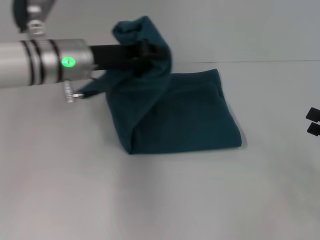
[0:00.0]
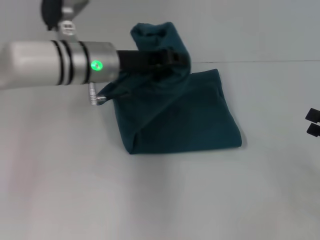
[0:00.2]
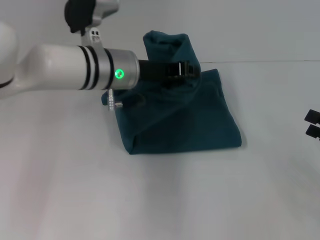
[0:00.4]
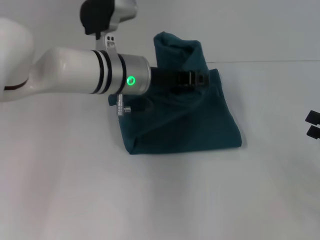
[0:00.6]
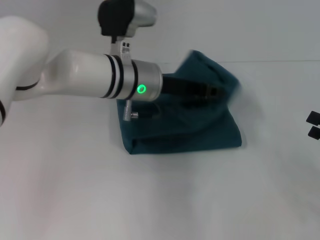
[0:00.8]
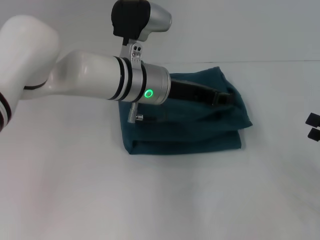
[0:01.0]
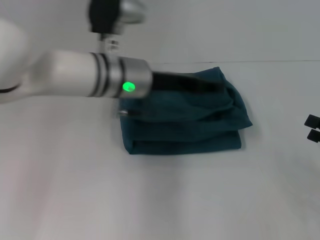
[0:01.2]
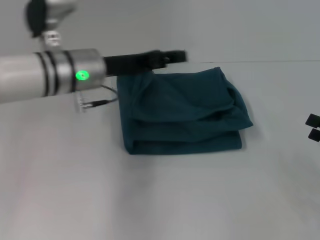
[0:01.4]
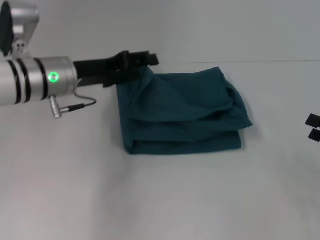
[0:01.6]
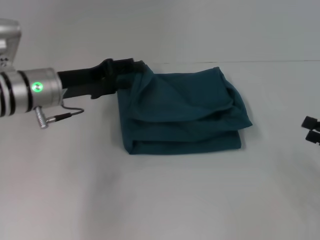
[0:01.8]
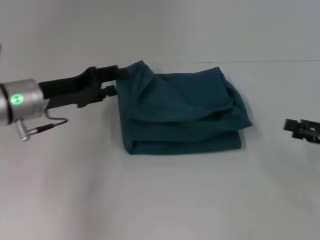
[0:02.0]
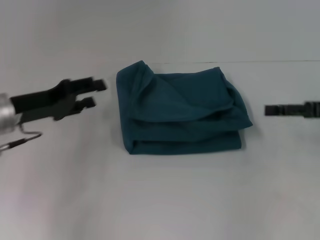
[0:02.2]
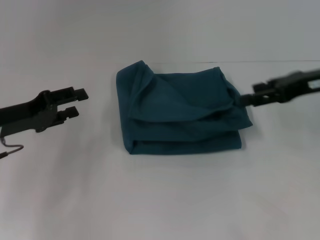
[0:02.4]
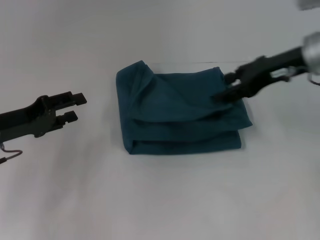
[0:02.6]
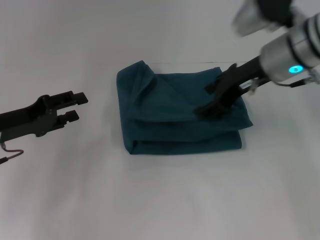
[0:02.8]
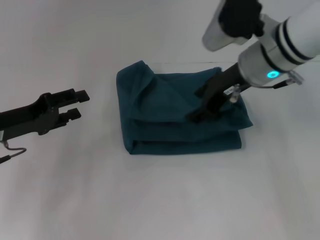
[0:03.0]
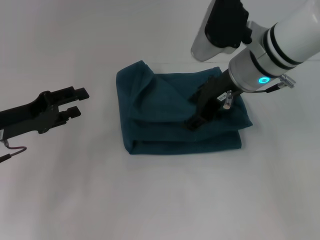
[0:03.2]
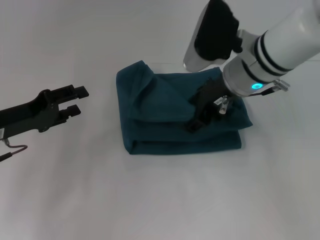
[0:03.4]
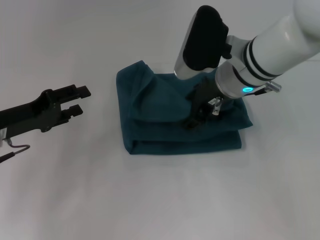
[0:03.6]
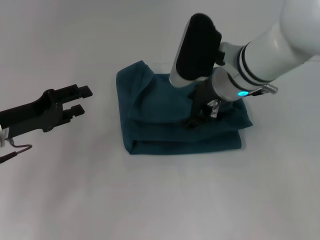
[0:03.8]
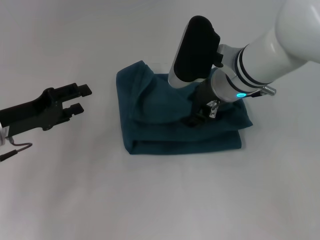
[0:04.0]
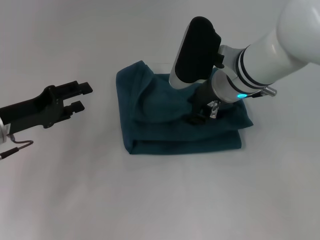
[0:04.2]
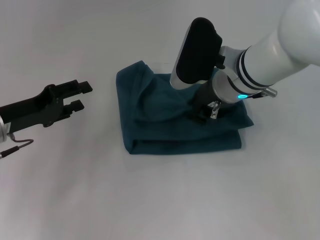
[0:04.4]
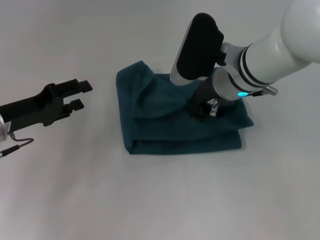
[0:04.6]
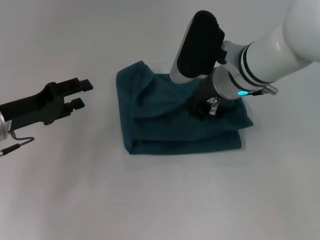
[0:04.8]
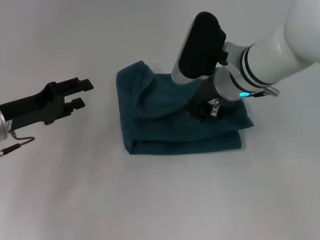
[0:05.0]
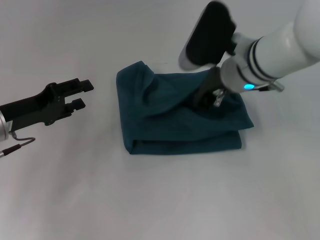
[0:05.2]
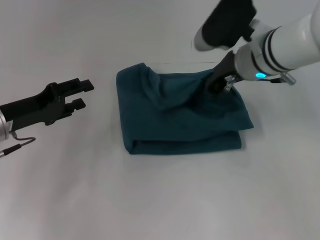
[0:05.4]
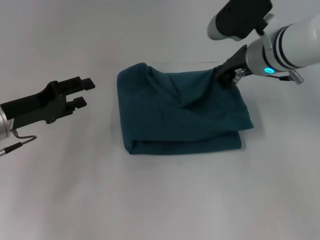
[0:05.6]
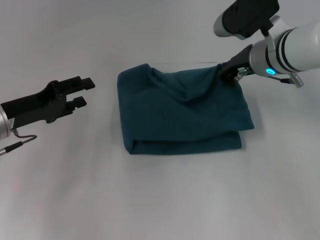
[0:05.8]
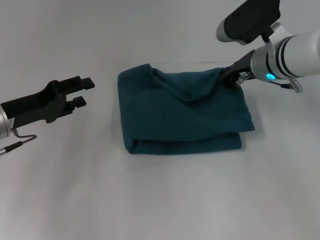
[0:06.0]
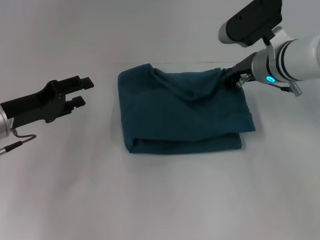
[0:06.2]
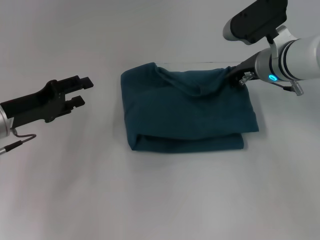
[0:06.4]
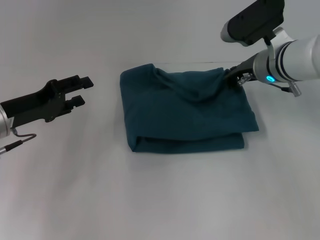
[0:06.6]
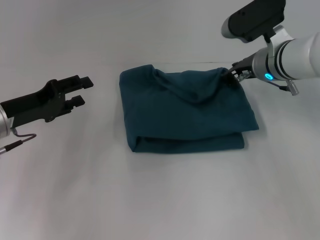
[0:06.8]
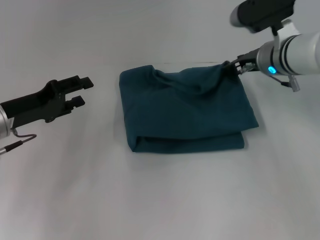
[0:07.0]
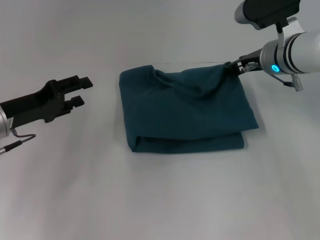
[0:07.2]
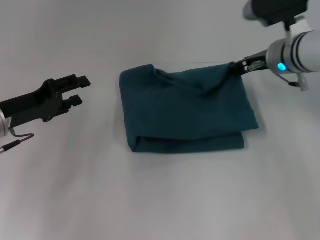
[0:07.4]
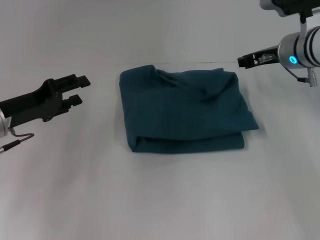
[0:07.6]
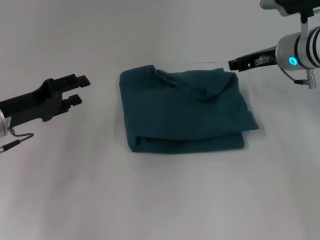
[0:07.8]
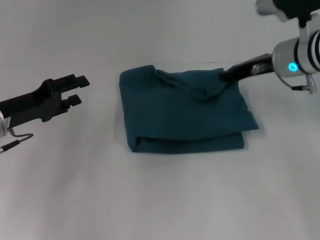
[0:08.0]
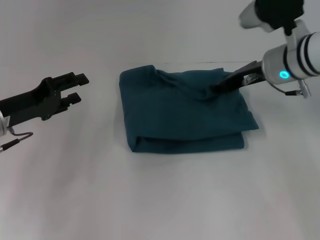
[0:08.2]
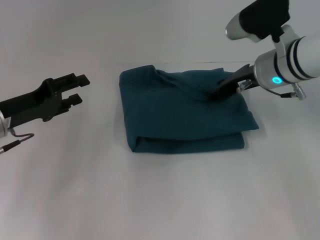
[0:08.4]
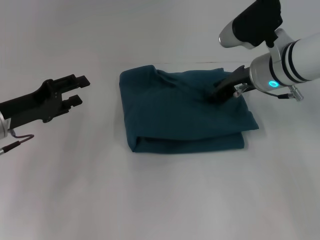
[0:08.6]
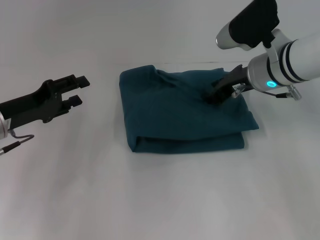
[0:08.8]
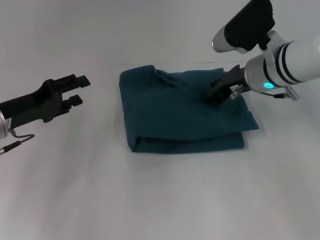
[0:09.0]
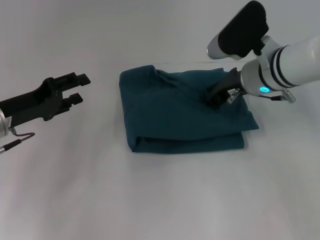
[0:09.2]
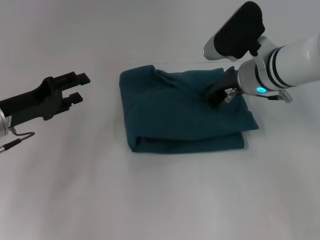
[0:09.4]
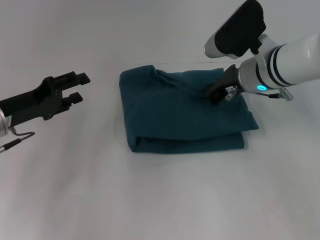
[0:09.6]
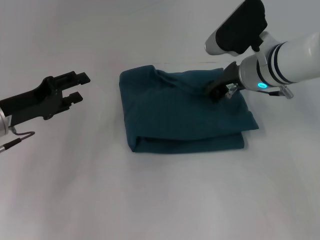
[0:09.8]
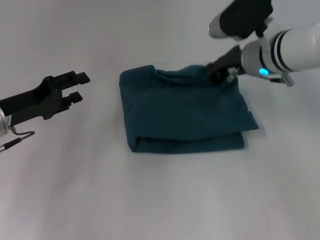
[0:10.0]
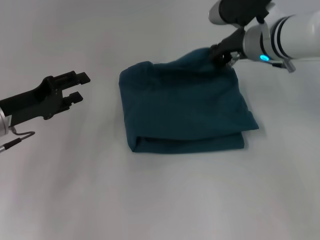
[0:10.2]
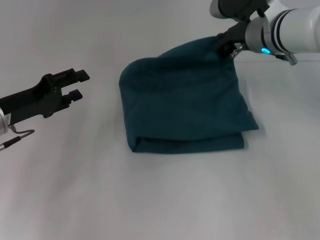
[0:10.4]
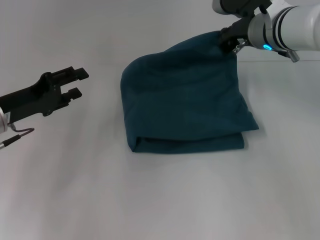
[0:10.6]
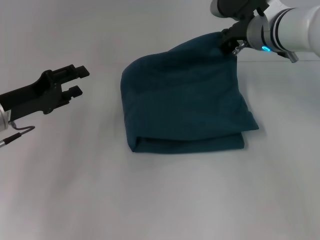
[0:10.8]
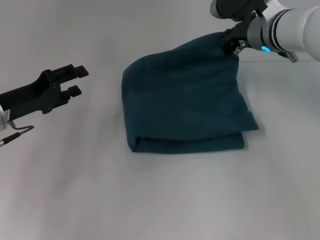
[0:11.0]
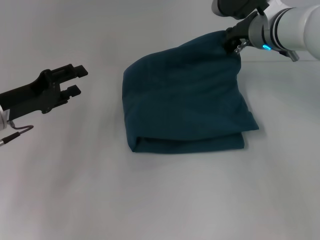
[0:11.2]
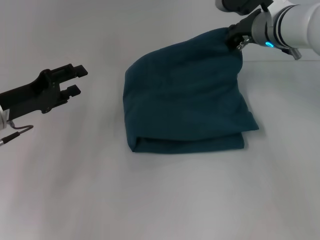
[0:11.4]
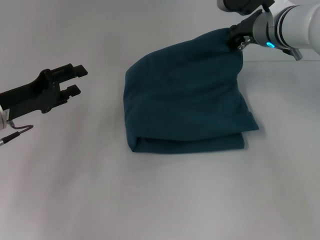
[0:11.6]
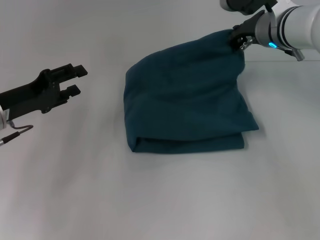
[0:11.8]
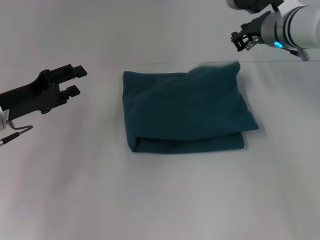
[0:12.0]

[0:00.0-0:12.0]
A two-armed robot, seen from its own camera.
0:00.0 to 0:01.6: The left gripper travels to the right and back again, roughly 10 cm each way, and opens its fingers.
0:01.6 to 0:03.0: The left gripper heads to the left and backward, covering approximately 15 cm, while the right gripper goes roughly 30 cm to the left, forward and upward.
0:03.0 to 0:04.4: The right gripper moves roughly 5 cm.
0:04.4 to 0:06.0: The right gripper moves to the right, approximately 5 cm, and closes its fingers.
0:06.0 to 0:07.6: The right gripper opens up.
0:07.6 to 0:09.0: The right gripper changes place by approximately 5 cm.
0:09.0 to 0:10.4: The right gripper closes.
0:10.4 to 0:12.0: There are only small adjustments of the grippers.

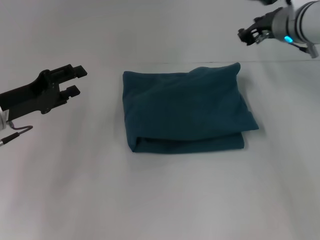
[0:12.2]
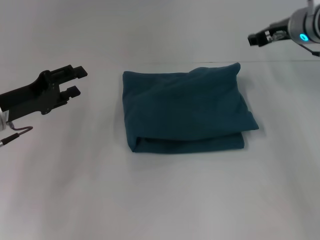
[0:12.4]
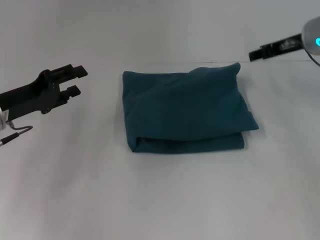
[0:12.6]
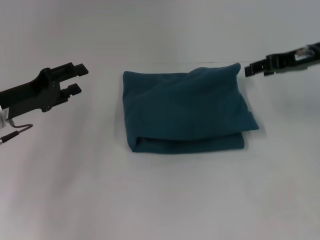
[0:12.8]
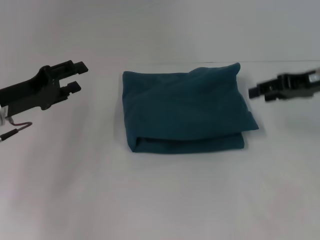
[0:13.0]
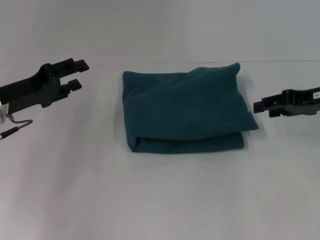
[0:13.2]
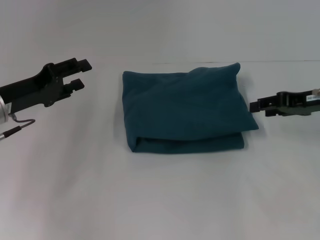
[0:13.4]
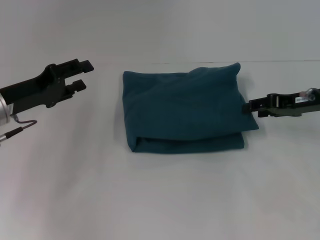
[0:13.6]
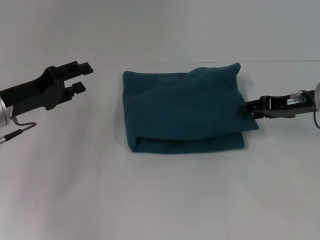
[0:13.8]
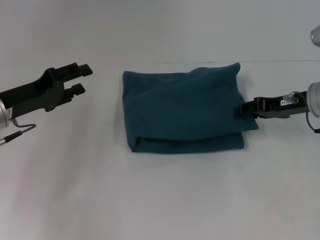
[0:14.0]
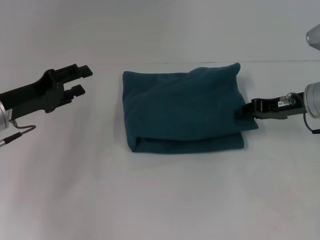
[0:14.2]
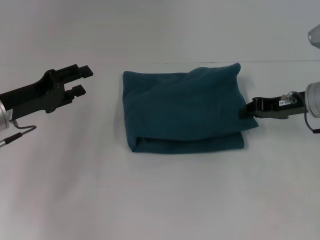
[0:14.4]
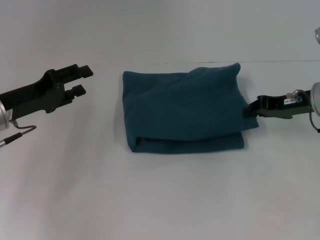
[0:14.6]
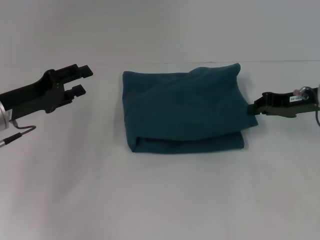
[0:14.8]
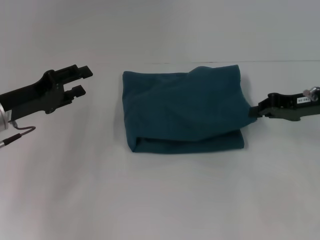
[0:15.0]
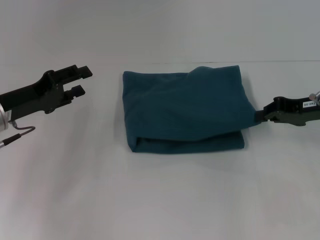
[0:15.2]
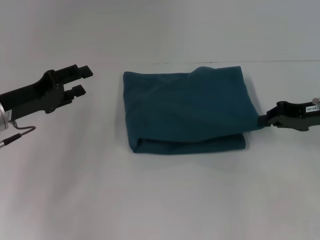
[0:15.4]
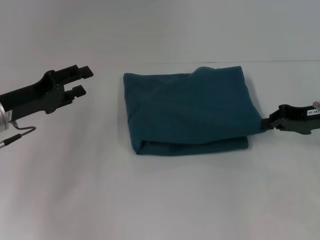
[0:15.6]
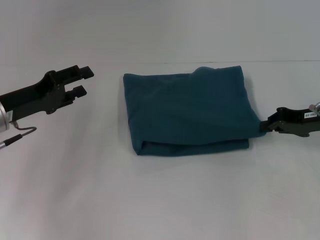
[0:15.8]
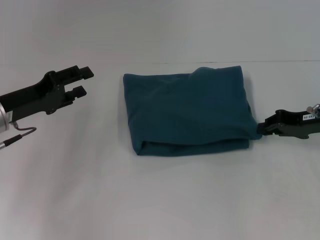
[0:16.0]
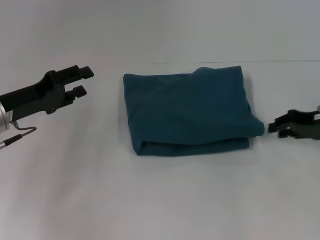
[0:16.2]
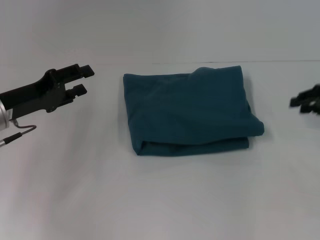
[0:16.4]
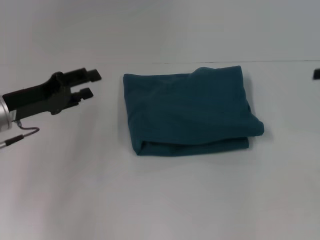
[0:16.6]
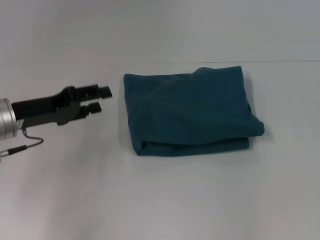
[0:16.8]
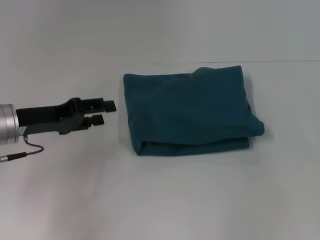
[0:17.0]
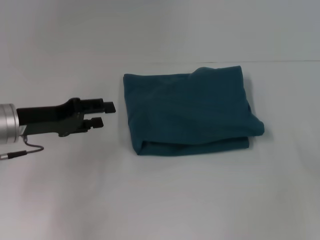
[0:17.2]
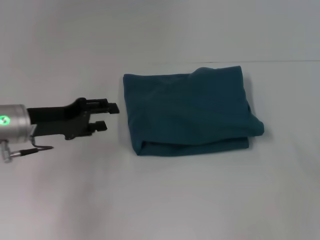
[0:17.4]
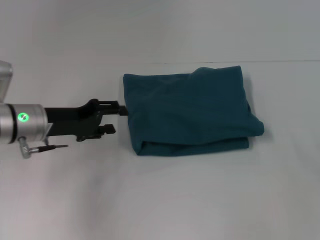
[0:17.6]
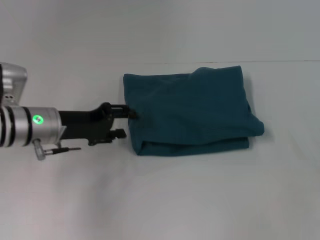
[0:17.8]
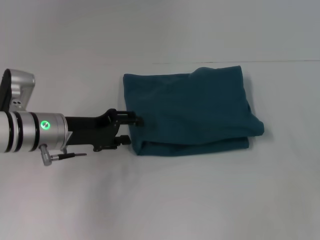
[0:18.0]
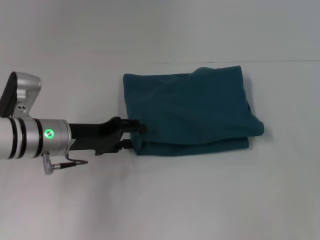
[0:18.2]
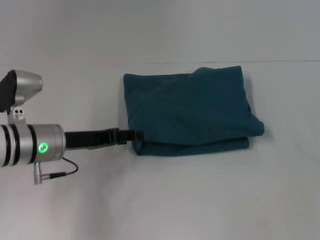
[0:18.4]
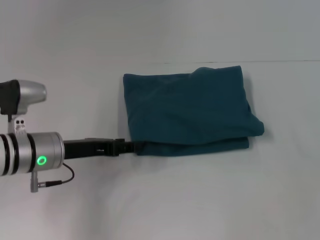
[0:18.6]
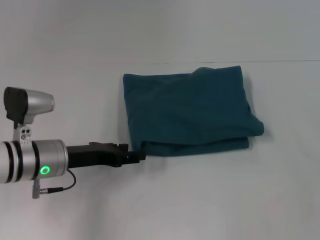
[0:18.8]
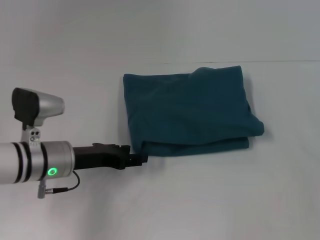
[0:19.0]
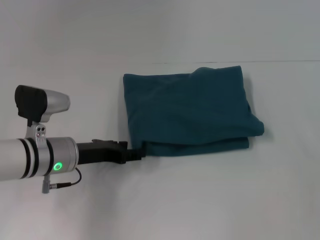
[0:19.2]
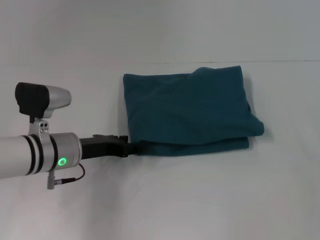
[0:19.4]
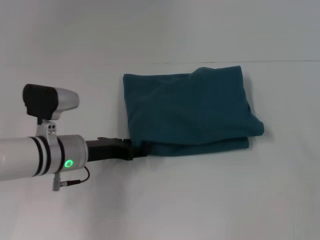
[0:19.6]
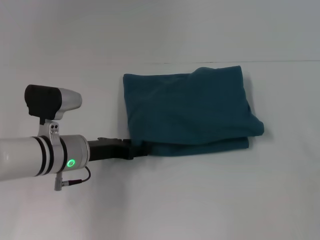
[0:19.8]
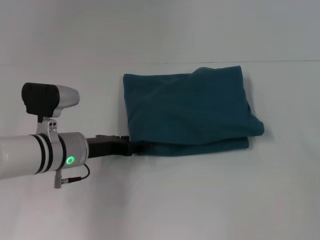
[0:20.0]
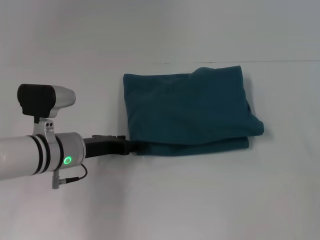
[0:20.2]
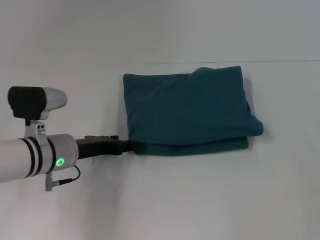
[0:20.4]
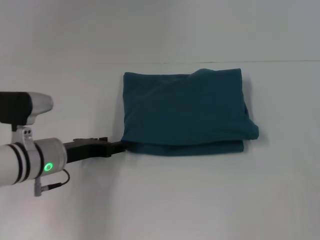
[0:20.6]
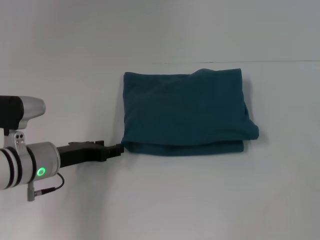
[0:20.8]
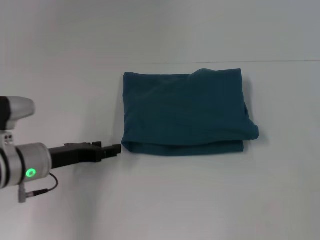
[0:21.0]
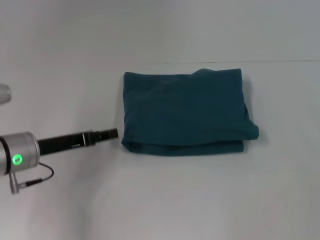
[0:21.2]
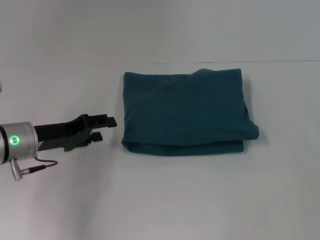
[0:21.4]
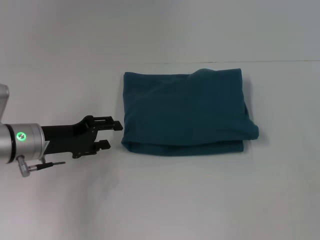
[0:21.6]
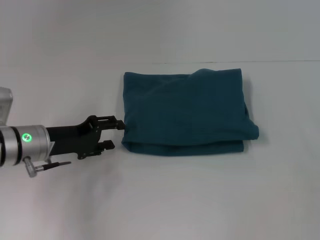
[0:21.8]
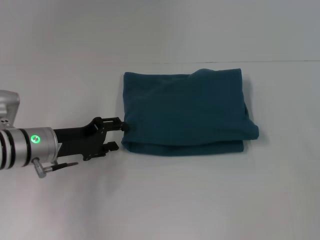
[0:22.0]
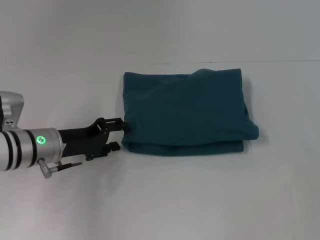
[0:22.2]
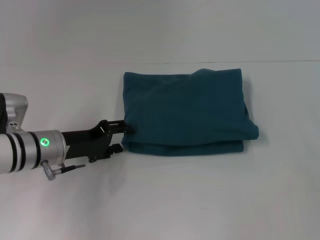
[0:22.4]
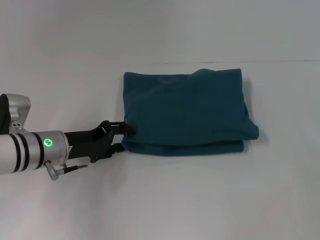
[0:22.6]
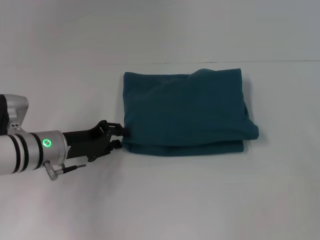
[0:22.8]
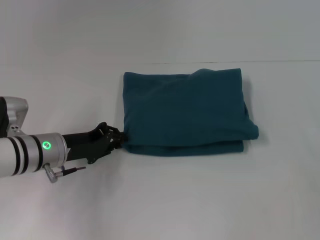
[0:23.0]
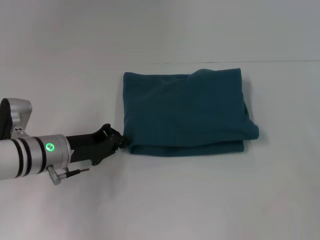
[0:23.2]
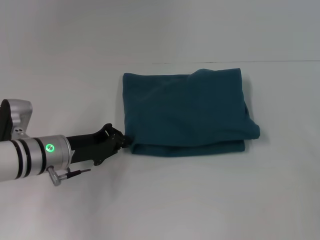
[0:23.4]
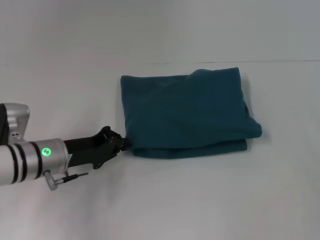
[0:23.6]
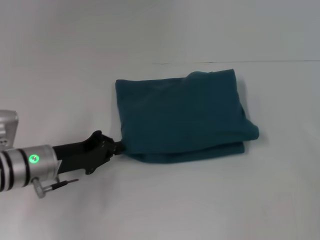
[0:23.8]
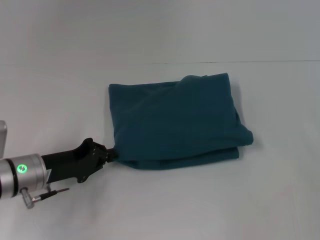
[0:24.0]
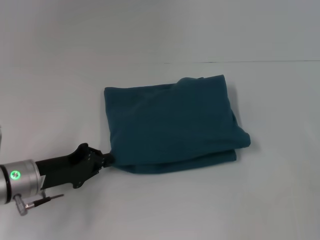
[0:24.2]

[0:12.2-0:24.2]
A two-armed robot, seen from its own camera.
0:12.2 to 0:13.8: The right gripper travels to the right, backward and downward by roughly 15 cm, and opens.
0:13.8 to 0:15.2: The right gripper closes up.
0:15.2 to 0:16.6: The right gripper is displaced to the right and upward by roughly 10 cm, and opens its fingers.
0:16.6 to 0:18.2: The left gripper moves to the right, some 5 cm; the right gripper heads backward, covering some 10 cm, and opens.
0:19.8 to 0:21.2: The left gripper is displaced to the left by approximately 5 cm.
0:22.6 to 0:24.2: The left gripper is displaced backward by about 5 cm, and closes up.
